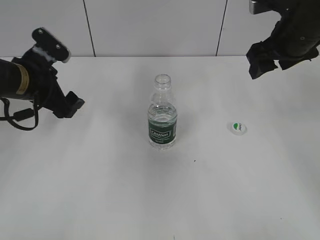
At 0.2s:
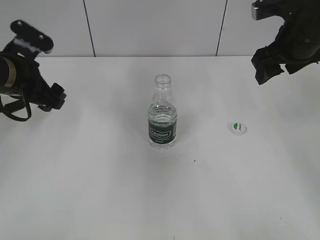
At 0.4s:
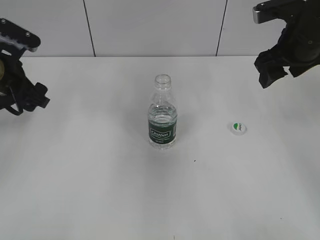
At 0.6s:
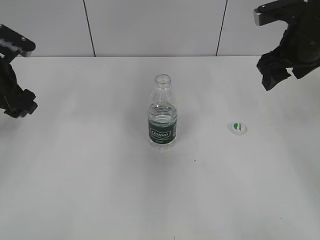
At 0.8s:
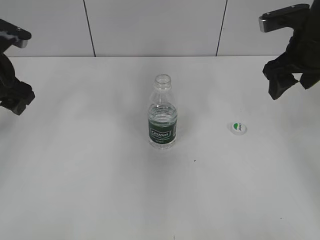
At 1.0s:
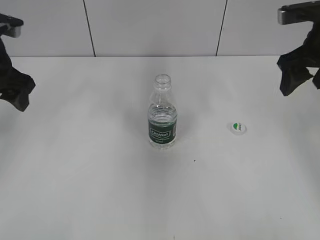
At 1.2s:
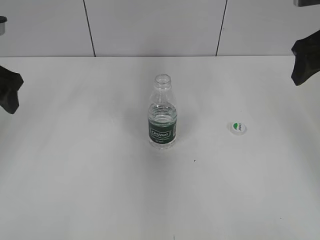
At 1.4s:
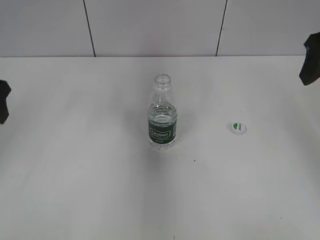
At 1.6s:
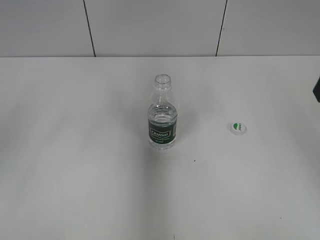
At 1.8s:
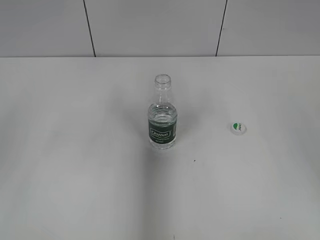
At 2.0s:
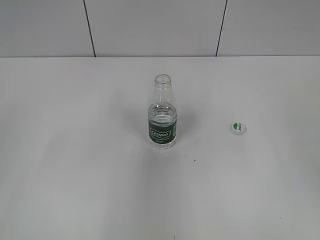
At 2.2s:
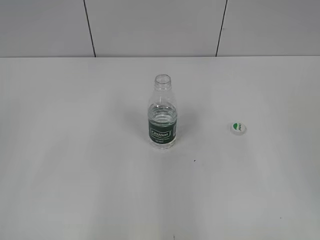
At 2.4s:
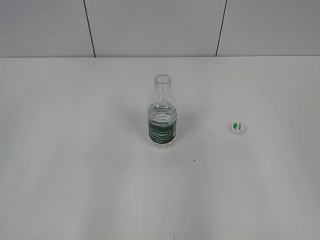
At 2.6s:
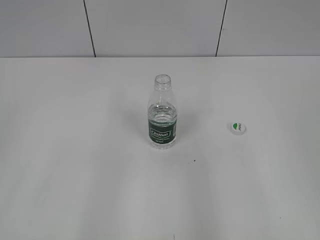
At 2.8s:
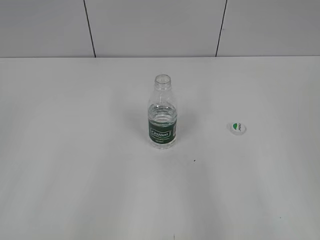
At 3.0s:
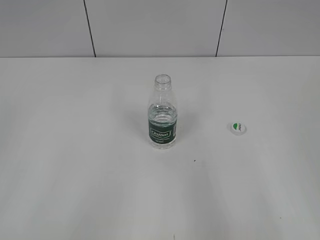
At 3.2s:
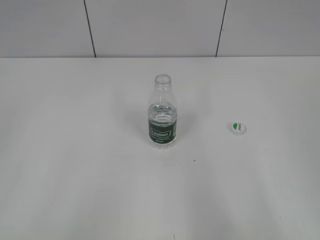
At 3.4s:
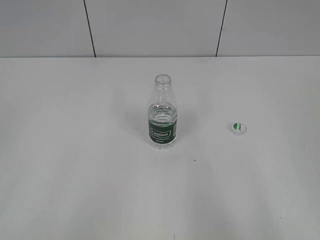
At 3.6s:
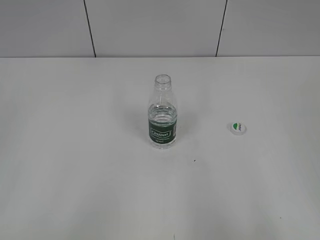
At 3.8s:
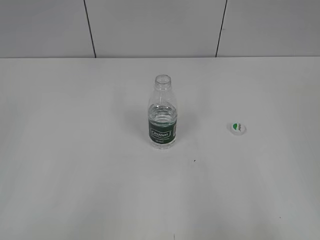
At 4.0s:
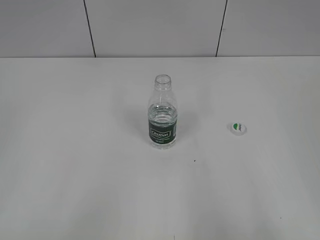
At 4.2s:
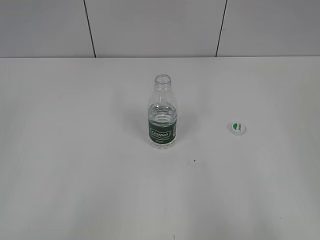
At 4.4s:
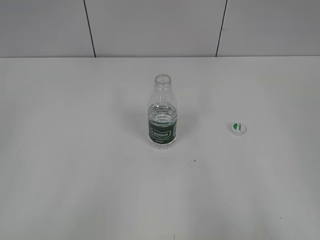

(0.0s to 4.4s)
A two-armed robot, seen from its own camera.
0.0s - 1.4s: The left gripper shifts roughly 15 cm upward, backward and to the left; the right gripper shifts some 10 cm backward and upward.
1.4s - 3.0s: Both grippers move backward, some 25 cm.

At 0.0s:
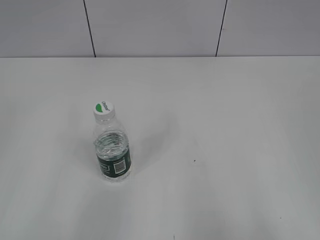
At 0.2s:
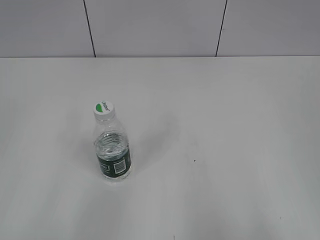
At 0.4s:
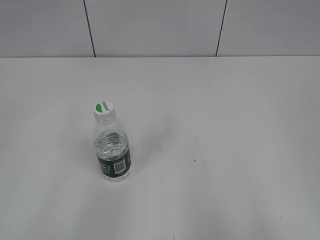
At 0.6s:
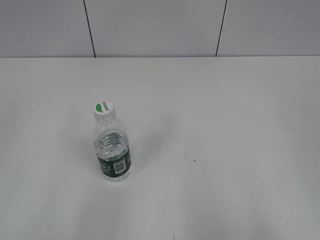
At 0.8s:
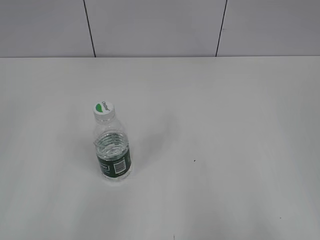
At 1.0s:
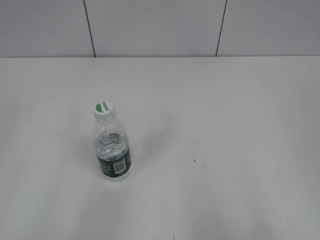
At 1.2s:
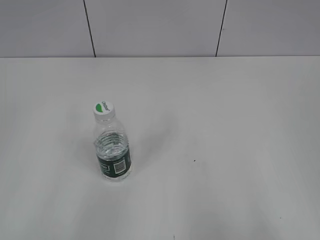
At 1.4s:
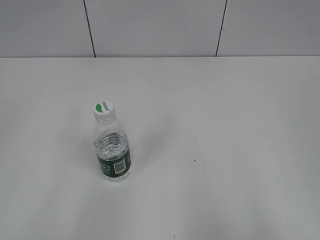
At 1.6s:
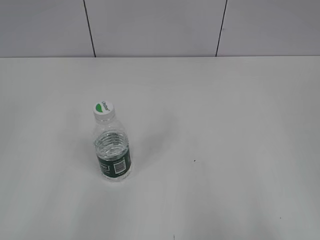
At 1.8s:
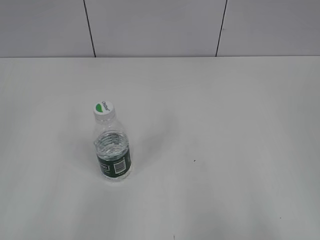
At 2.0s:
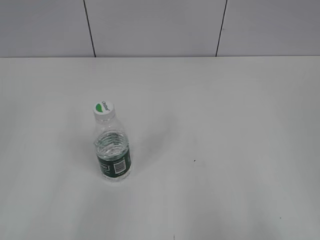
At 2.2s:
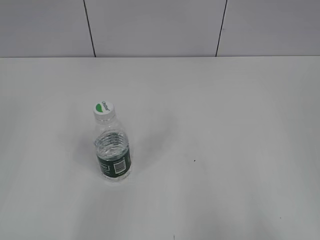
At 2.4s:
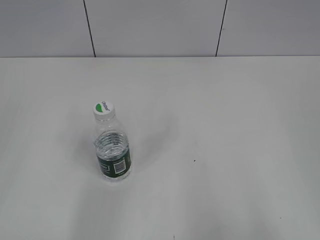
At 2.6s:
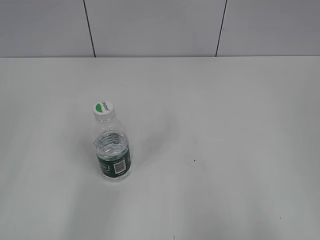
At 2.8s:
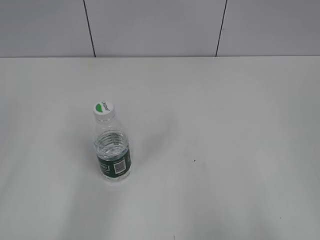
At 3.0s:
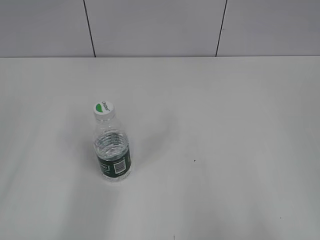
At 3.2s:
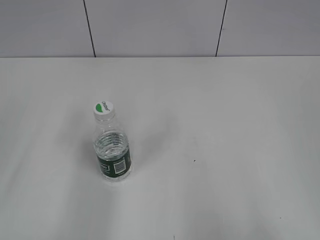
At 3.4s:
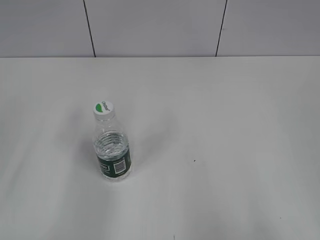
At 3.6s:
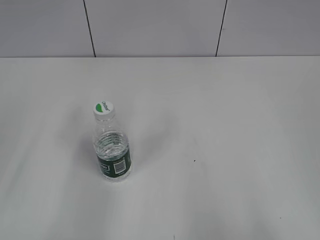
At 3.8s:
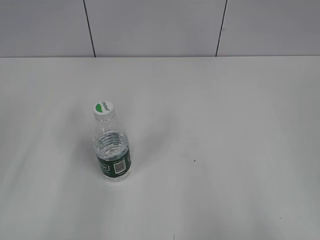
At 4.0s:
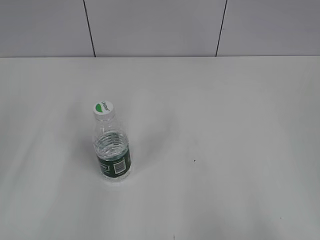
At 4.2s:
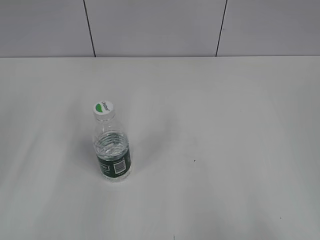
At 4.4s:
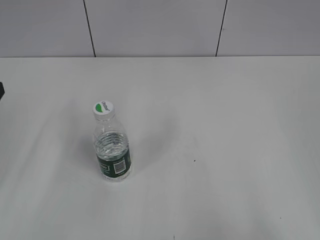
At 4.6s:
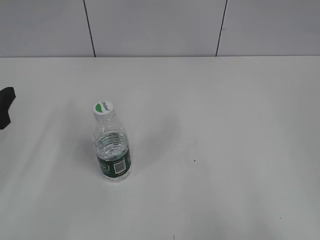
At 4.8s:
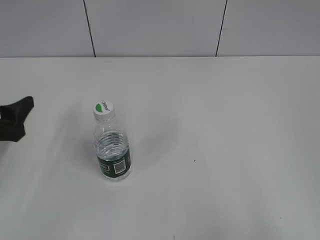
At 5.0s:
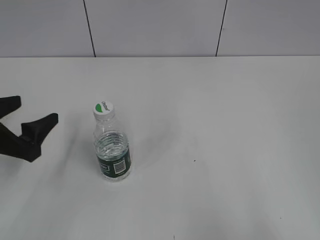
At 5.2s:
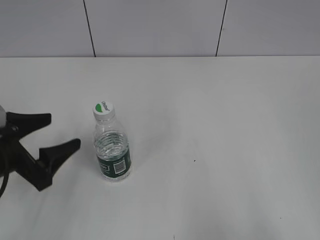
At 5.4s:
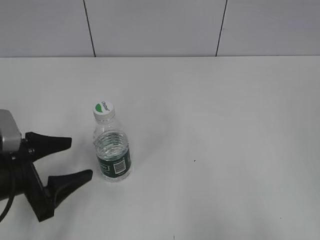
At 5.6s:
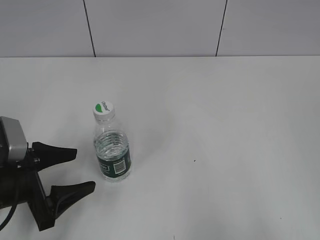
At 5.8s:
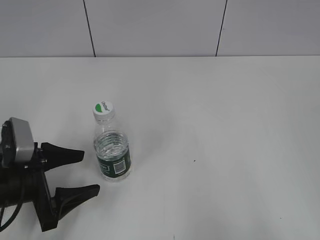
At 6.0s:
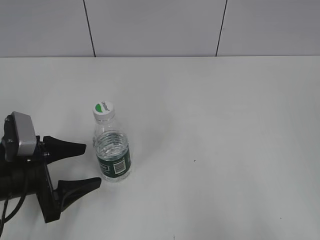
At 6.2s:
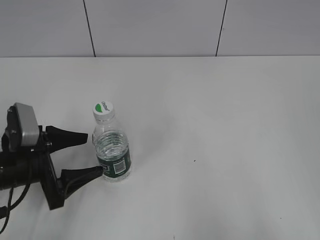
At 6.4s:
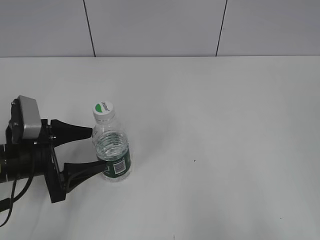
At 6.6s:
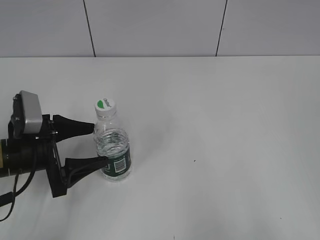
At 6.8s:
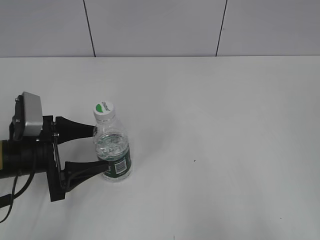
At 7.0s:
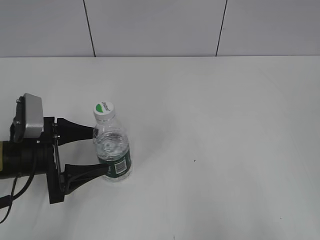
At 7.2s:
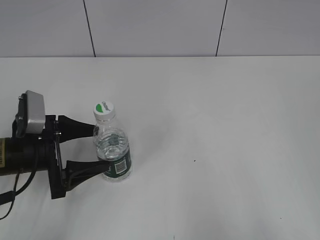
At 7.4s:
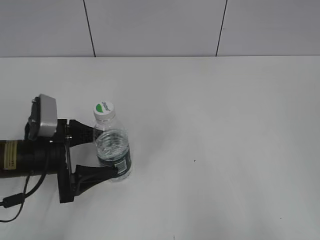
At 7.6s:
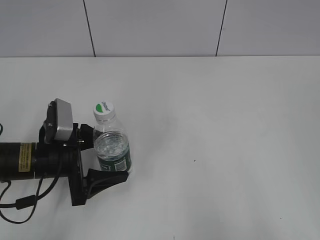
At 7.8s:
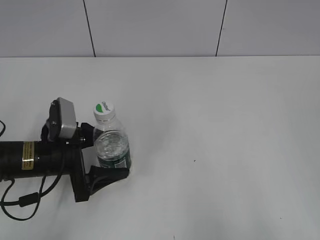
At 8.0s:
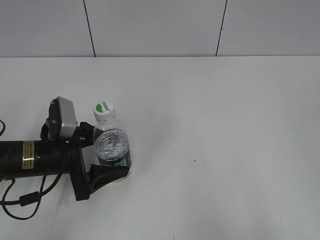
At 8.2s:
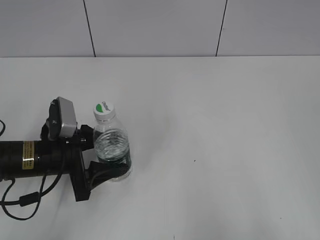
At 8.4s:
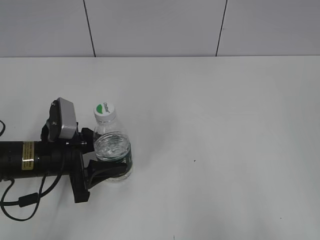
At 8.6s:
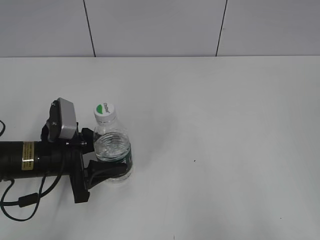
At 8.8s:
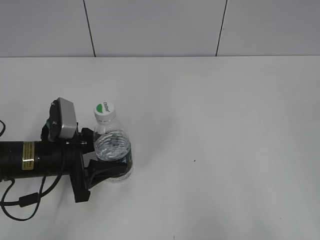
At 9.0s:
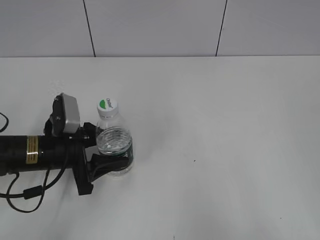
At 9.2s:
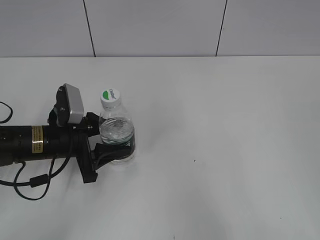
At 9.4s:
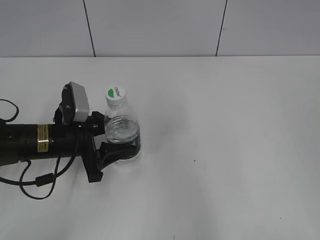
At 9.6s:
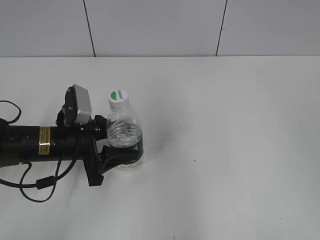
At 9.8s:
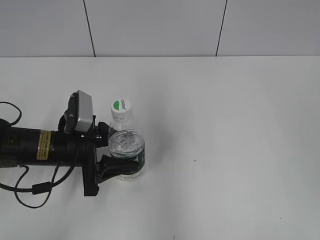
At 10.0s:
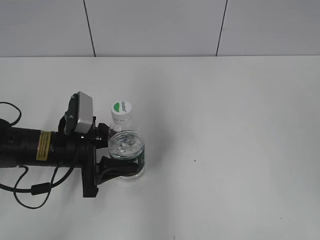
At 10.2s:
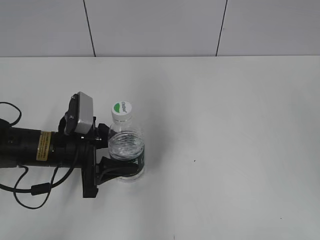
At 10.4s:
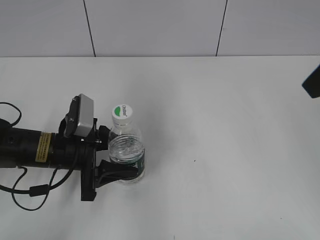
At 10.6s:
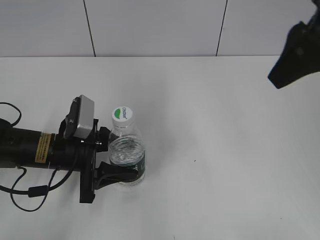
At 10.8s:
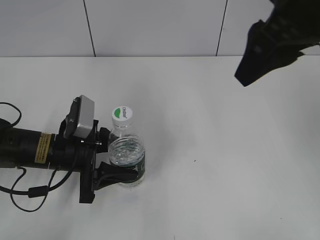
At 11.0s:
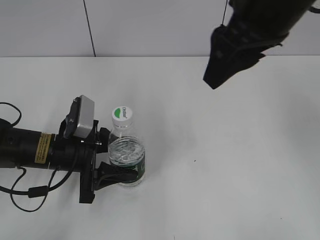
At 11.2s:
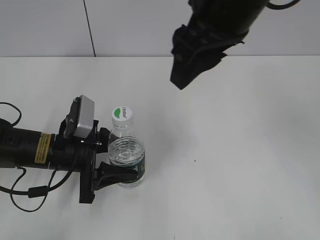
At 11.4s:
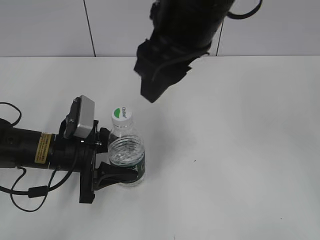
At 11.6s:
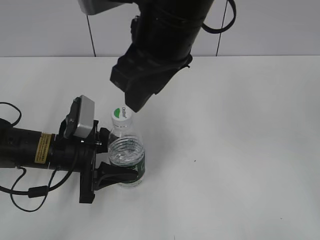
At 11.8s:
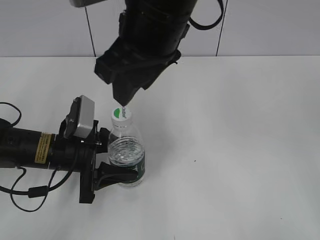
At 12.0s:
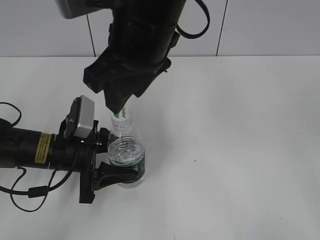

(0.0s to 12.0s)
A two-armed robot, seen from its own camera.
Step, 0.0s - 8.6s: Grasp the bottle and move it to the center of the table with the left gripper.
Step, 8.8s - 9.8s: Lift the bottle and move it to the center of the table with the left gripper.
4.4s - 6.0s: The left gripper heads downward and to the right, covering roughly 15 cm.
6.0s - 7.6s: The left gripper ends up approximately 5 cm from where it was.
7.6s - 9.0s: The left gripper closes its fingers.
9.0s - 10.4s: The right gripper is displaced forward by about 20 cm, and closes its fingers.
10.4s - 12.0s: The right gripper heads to the left, covering roughly 25 cm.

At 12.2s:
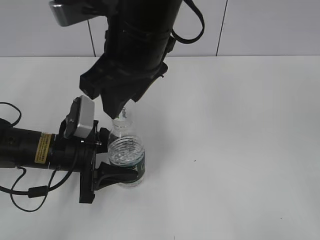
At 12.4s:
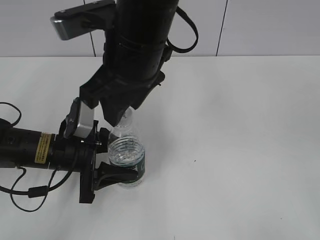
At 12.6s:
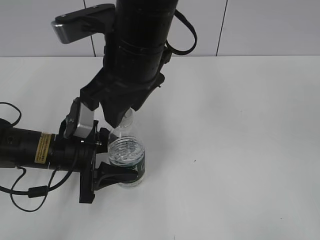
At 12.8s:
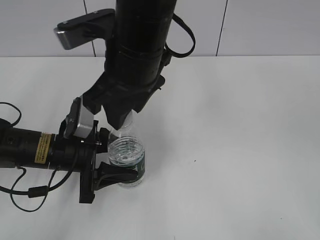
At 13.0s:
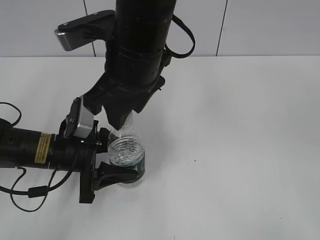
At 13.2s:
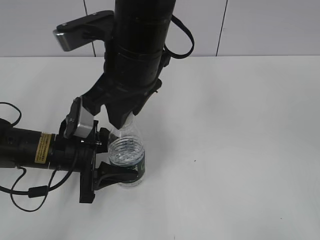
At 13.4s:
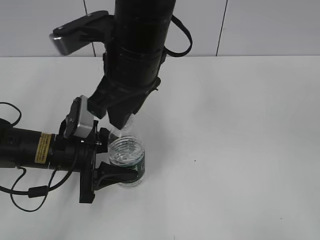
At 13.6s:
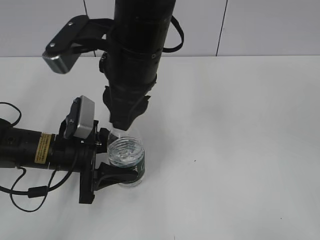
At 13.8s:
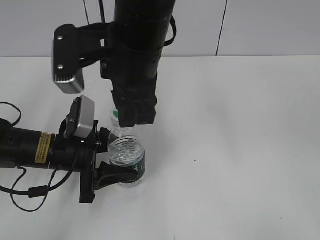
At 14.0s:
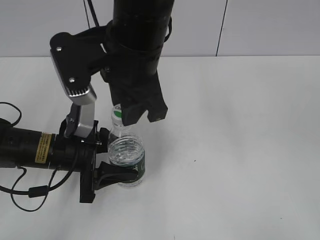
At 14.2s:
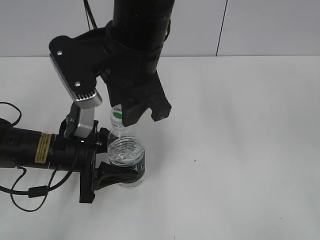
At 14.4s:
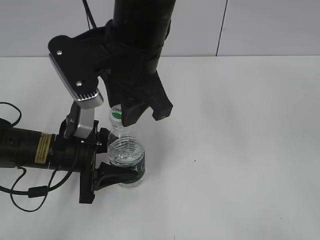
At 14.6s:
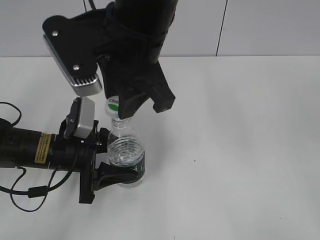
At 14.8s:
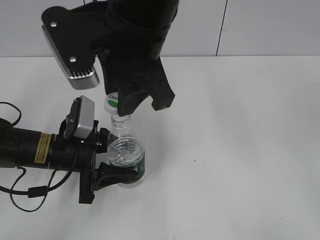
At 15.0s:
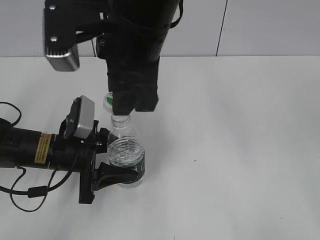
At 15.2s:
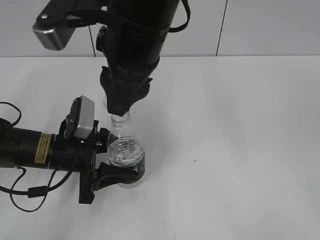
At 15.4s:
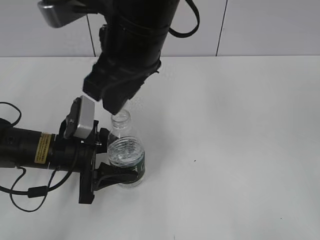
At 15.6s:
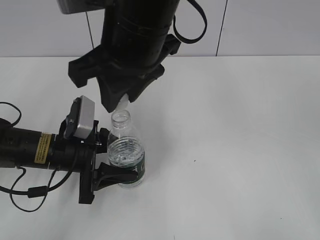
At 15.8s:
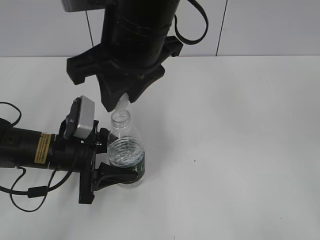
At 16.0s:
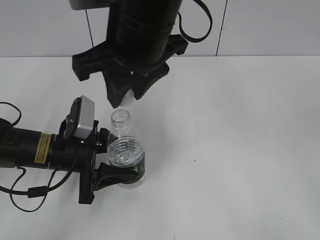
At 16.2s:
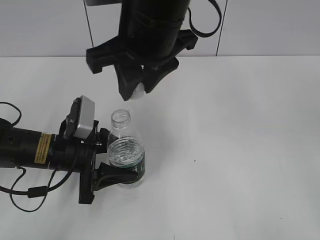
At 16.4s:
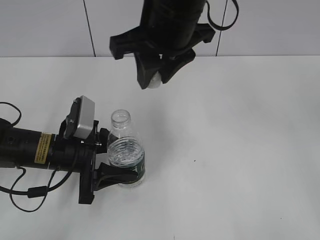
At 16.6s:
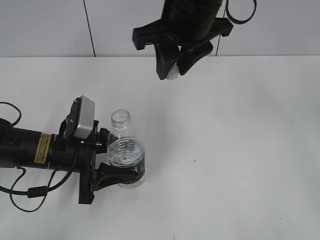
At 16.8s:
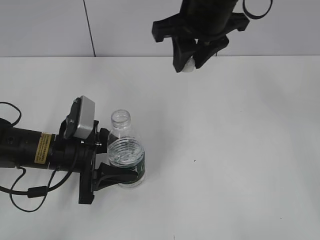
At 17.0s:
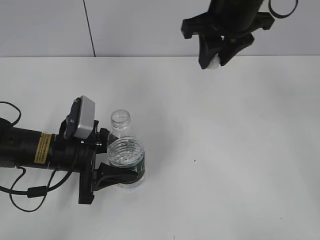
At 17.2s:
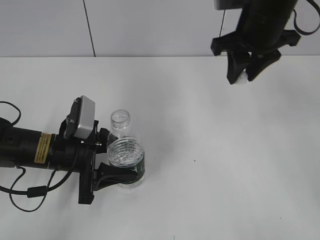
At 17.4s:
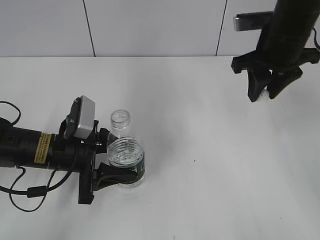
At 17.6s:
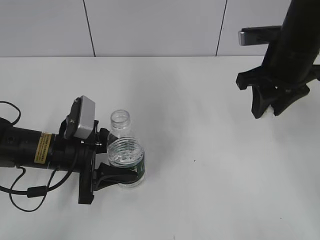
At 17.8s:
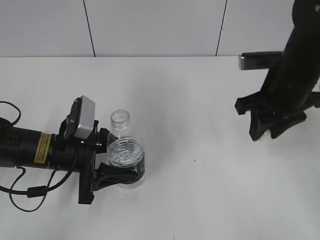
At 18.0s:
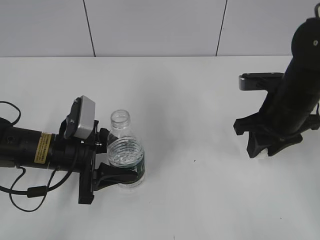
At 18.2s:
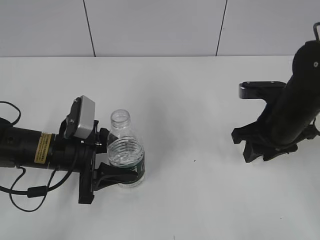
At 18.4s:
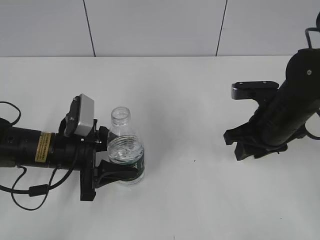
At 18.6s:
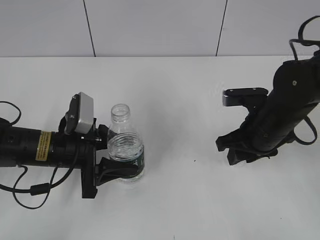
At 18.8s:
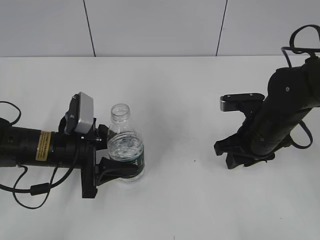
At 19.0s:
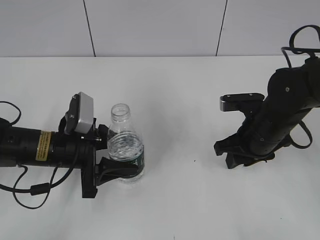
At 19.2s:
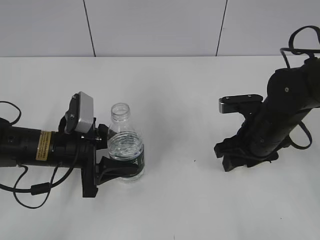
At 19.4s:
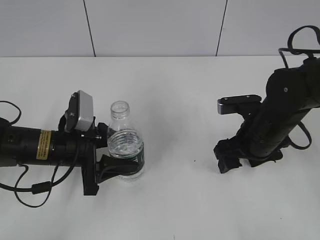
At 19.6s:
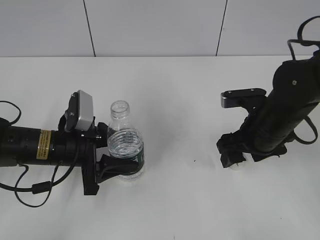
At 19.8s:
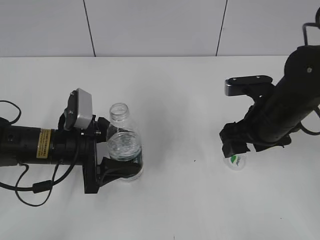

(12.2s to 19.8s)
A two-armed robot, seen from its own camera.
Step, 12.2s - 14.8s: Unscrew the bottle cap with the right gripper while holding the bottle with the left gripper.
Step, 15.0s - 19.6s: Place the bottle cap on the table with the right gripper.
12.2s - 13.8s: The right gripper closes.
15.2s - 16.8s: The right gripper heads to the right and forward, covering about 10 cm.
16.8s - 18.2s: The right gripper travels downward and to the right by roughly 20 cm.
18.2s - 19.8s: The left gripper opens. The right gripper opens.
